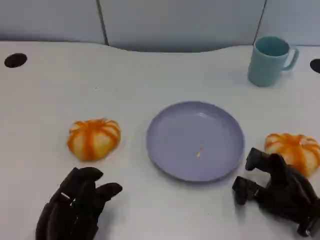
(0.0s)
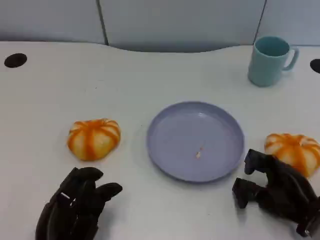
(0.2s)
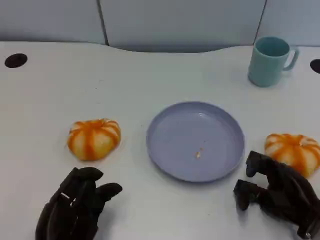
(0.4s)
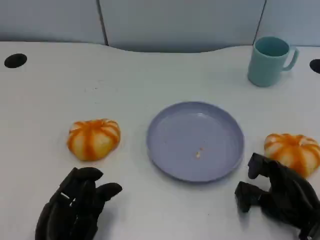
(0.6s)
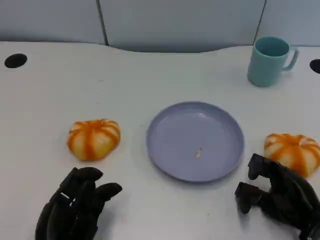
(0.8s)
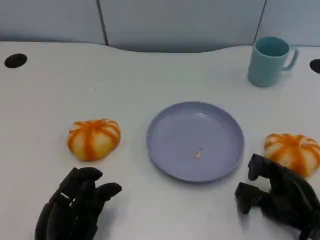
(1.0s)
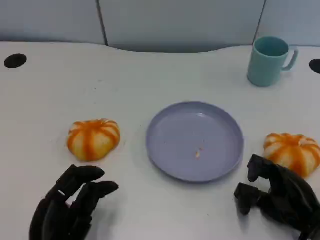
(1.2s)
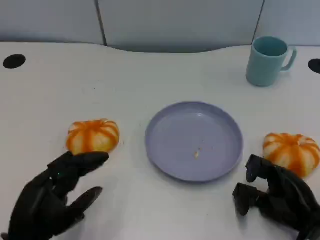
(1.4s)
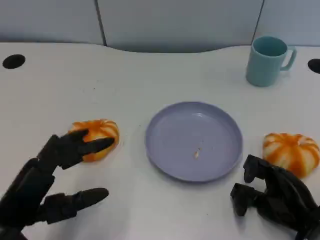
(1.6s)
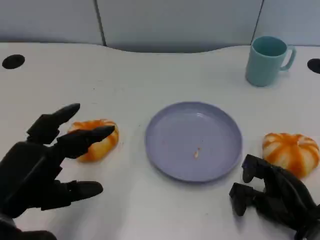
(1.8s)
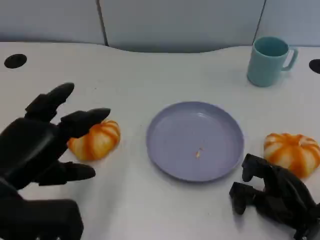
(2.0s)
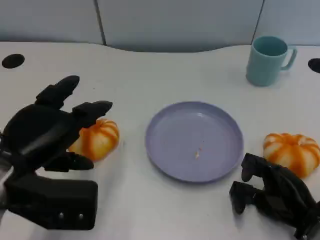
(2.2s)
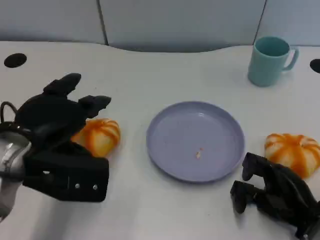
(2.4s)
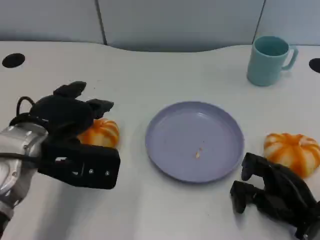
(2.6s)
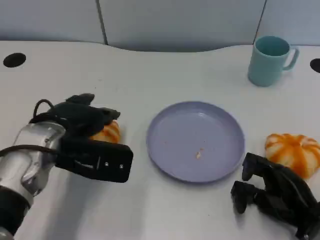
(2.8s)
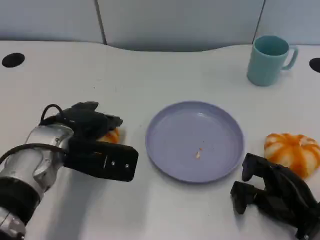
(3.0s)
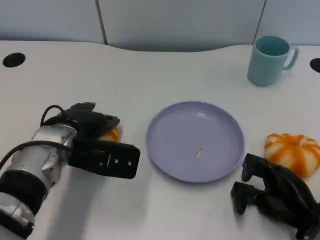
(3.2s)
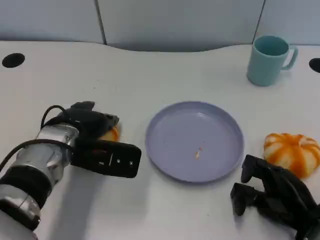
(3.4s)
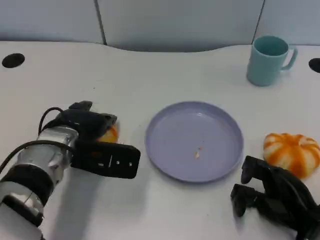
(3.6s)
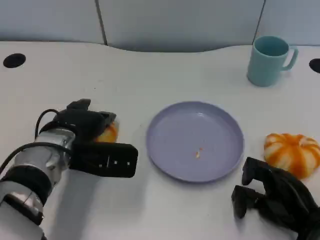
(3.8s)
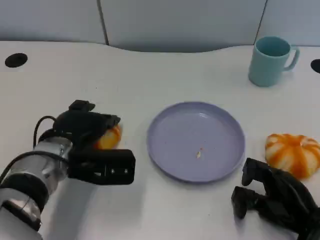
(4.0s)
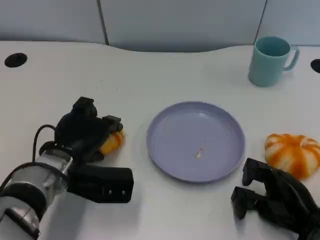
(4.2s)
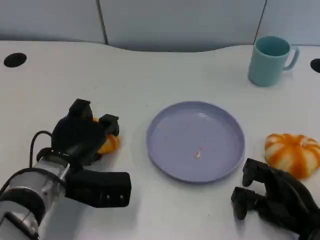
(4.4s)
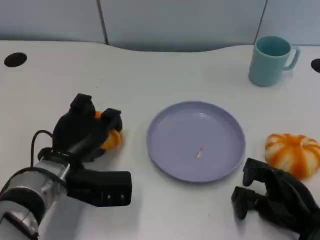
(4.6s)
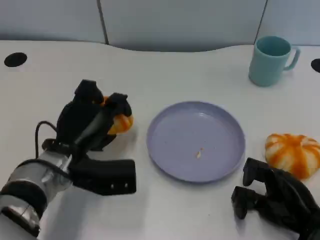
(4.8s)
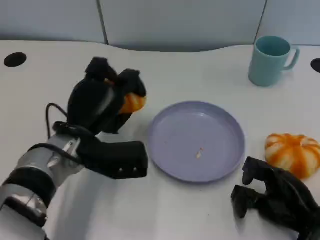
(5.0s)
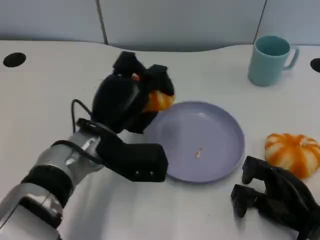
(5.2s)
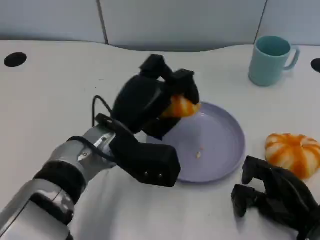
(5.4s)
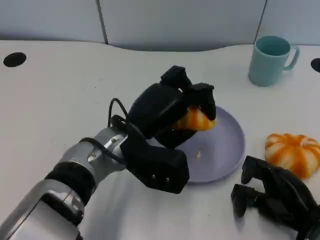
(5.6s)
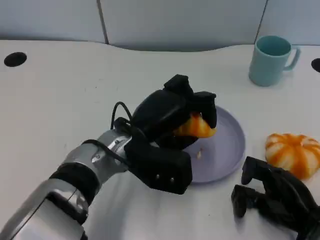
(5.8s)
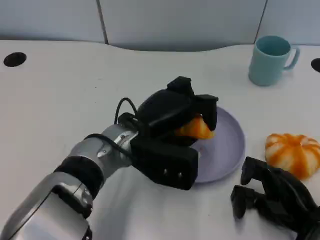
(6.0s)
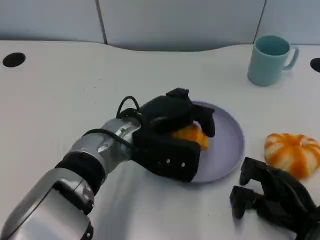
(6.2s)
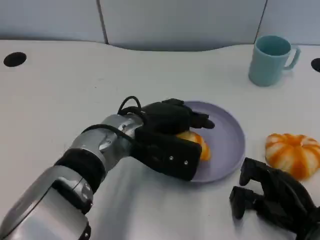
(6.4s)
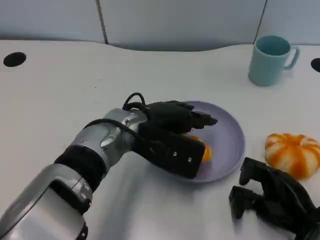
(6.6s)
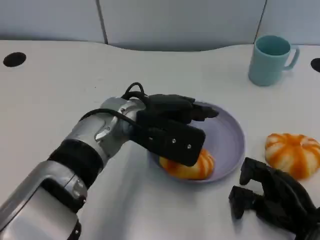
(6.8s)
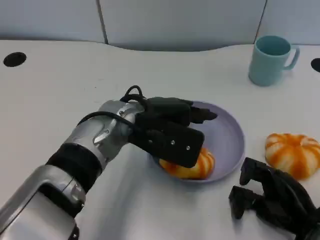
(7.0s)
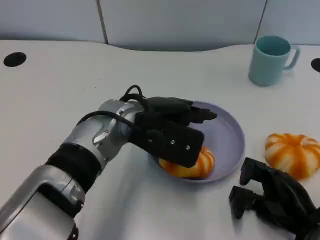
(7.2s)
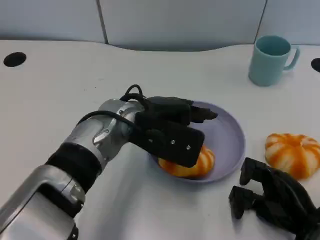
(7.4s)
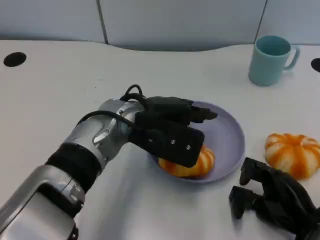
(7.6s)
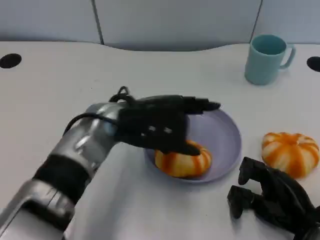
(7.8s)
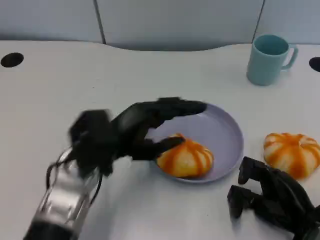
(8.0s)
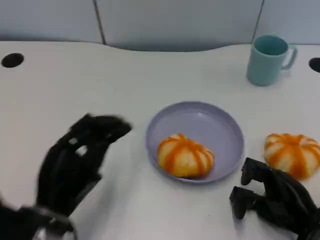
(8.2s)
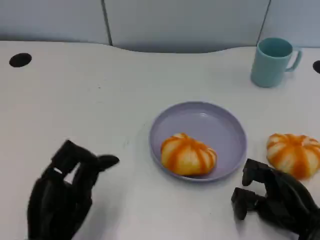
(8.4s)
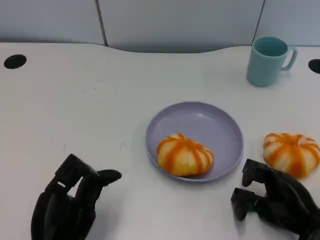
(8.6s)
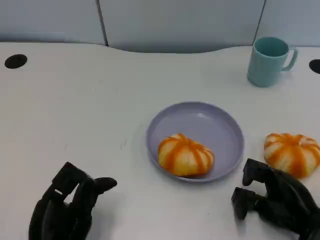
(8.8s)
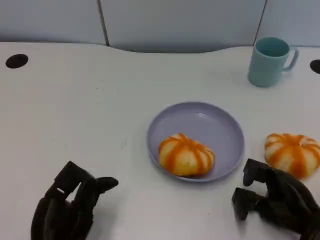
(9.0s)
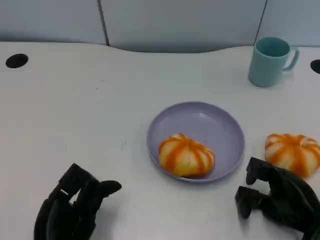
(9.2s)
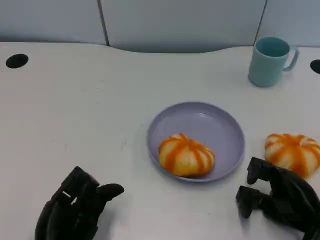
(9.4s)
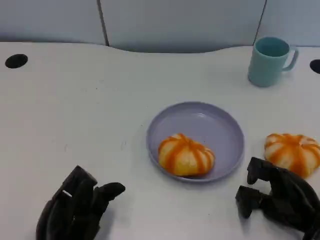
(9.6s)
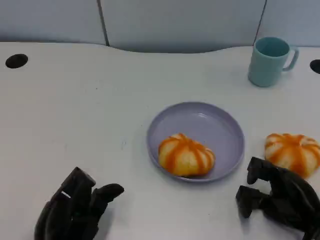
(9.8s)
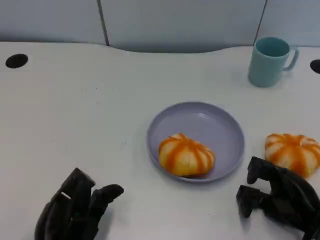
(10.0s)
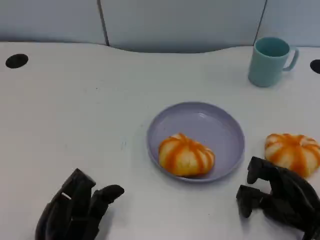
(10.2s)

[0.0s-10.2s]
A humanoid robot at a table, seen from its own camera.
Task of the whole recording: Grasp the bread from the table and place it into the plate.
0.0s to 1.4s: The left hand shifts by some 5 cm.
1.4s to 3.0s: The left hand is displaced forward by about 15 cm.
3.0s to 4.4s: The left hand shifts about 5 cm downward.
4.4s to 5.8s: The left hand moves to the right and upward, approximately 10 cm.
7.2s to 8.8s: The left hand goes some 25 cm backward, to the left and downward.
8.8s to 10.2s: There are only small adjustments of the hands.

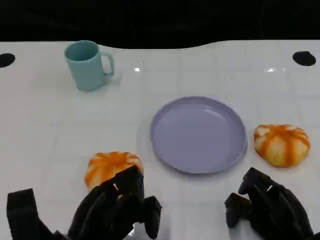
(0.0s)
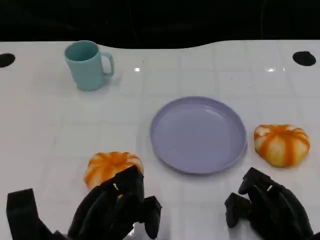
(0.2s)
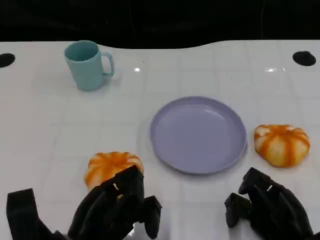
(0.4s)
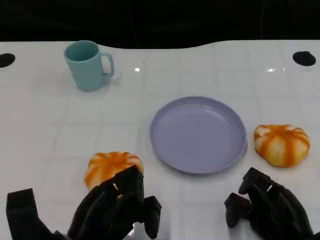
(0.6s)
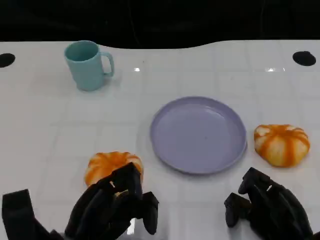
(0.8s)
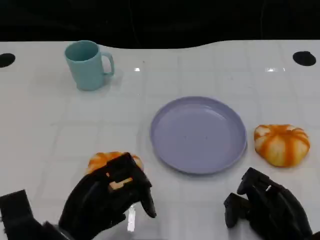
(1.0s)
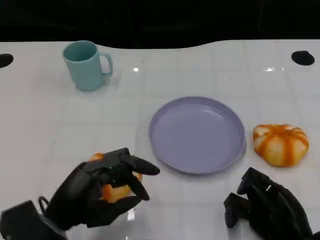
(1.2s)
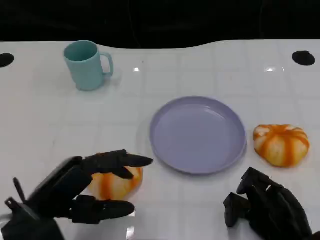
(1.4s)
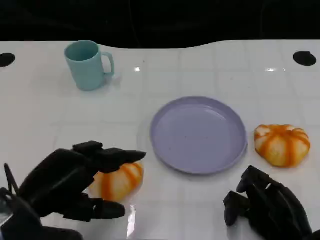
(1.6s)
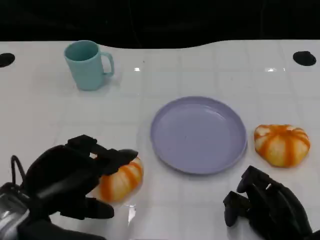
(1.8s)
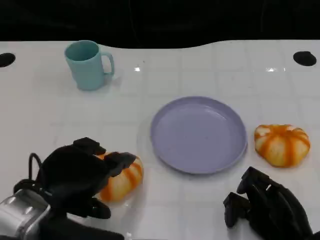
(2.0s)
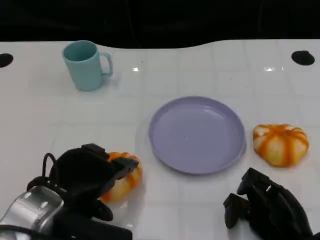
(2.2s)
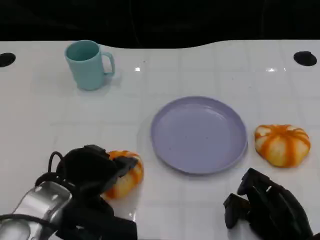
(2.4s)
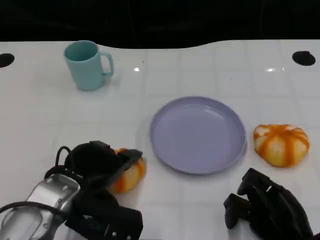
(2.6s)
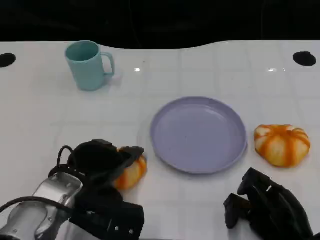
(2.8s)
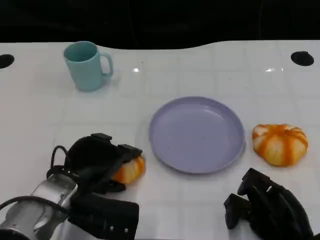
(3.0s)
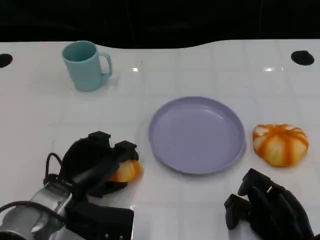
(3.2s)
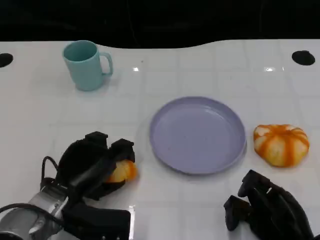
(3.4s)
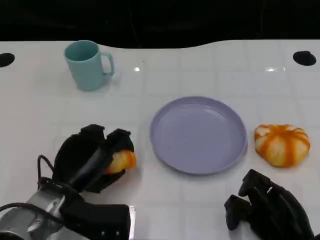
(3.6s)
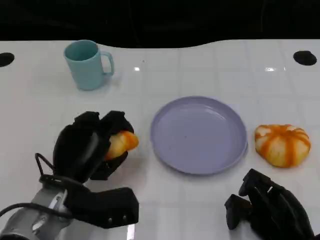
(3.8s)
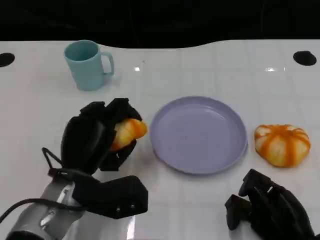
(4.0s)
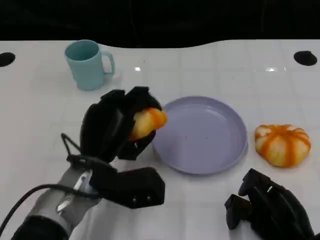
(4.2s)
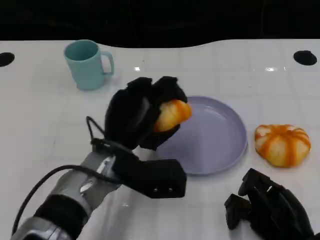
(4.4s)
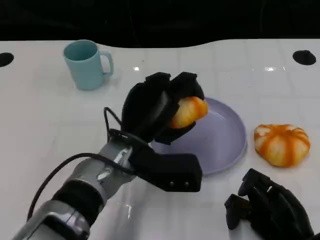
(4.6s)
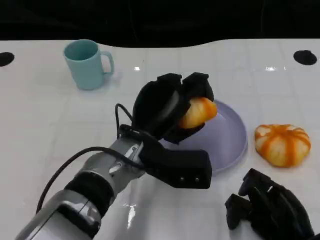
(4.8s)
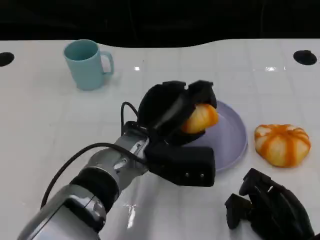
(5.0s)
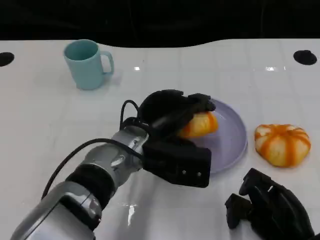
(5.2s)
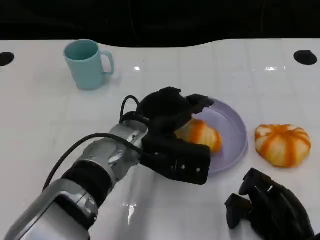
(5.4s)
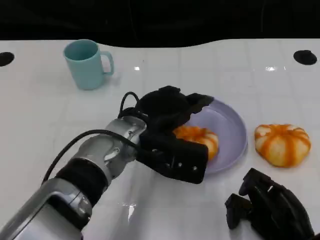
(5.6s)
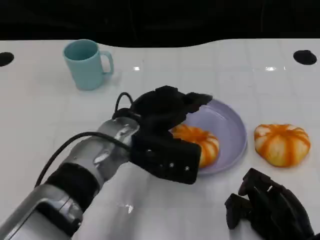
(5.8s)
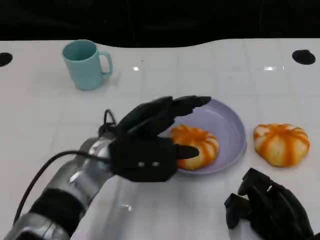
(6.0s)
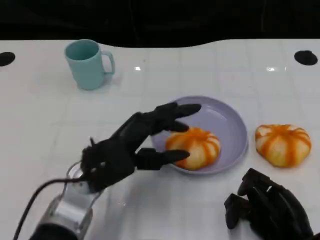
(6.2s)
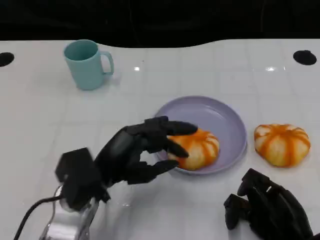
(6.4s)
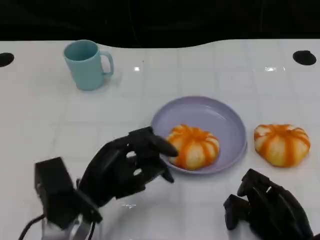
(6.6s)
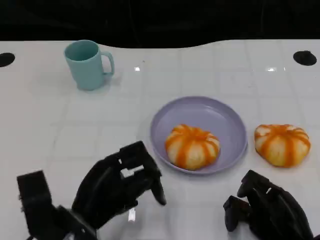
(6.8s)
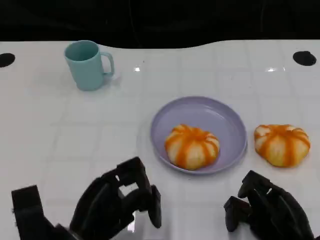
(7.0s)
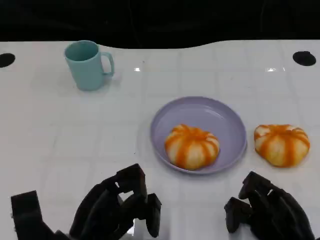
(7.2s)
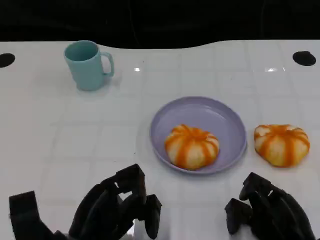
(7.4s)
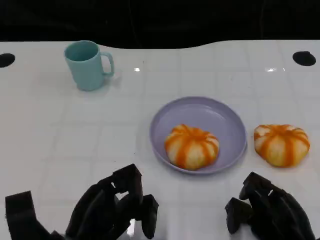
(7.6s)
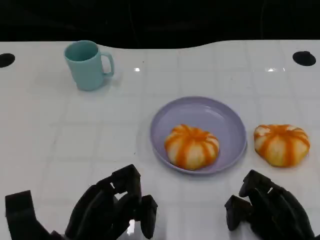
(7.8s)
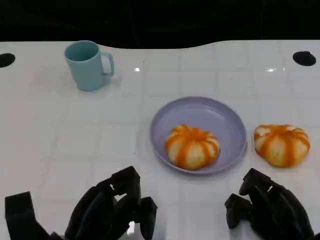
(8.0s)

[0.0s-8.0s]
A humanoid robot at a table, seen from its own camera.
Task of the whole recording: Grasp the bread from the table and place it into the plate.
0.0s to 1.6s: The left hand moves upward and to the left, some 10 cm.
1.6s to 3.2s: The left hand travels downward and forward by approximately 10 cm.
3.2s to 4.8s: The left hand travels to the right and upward by about 15 cm.
4.8s to 6.4s: The left hand moves to the left, about 10 cm.
6.4s to 8.0s: The left hand heads backward, covering some 5 cm.

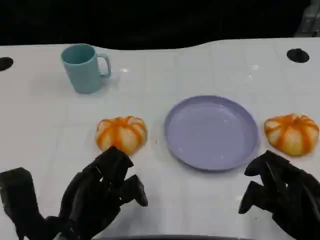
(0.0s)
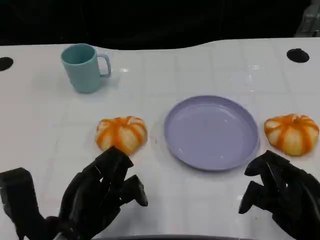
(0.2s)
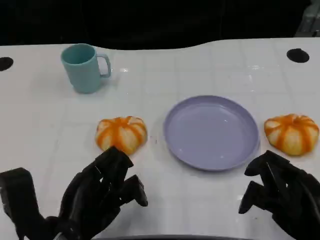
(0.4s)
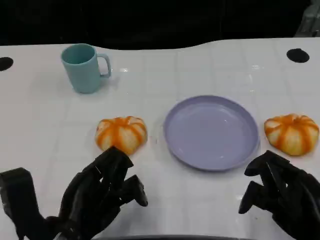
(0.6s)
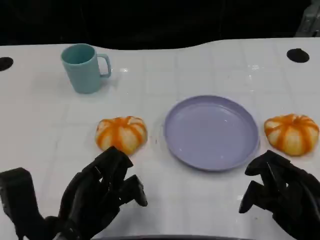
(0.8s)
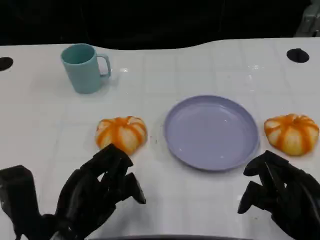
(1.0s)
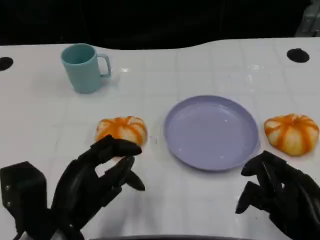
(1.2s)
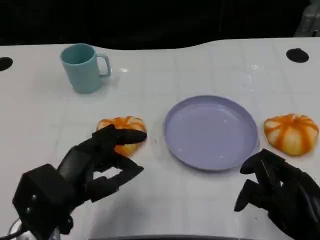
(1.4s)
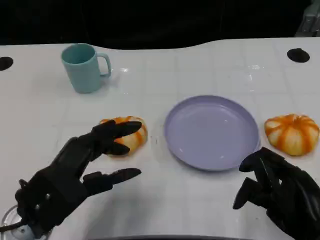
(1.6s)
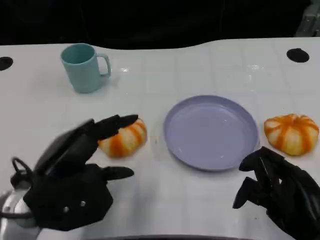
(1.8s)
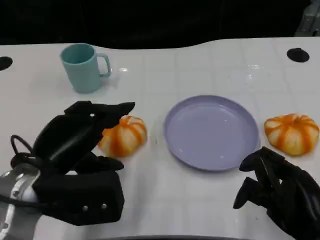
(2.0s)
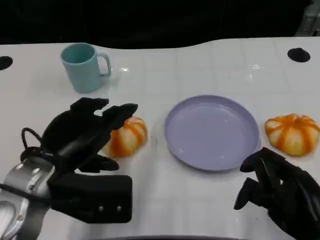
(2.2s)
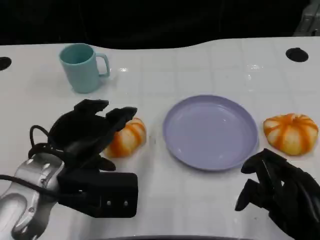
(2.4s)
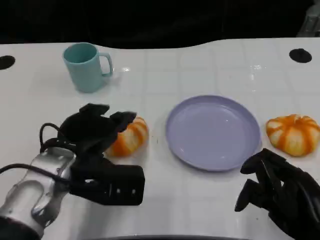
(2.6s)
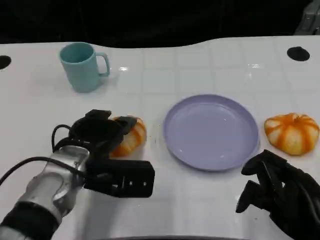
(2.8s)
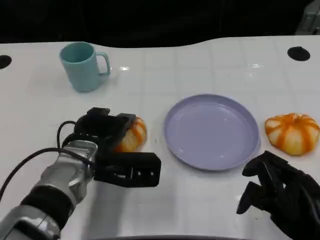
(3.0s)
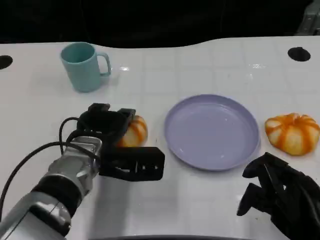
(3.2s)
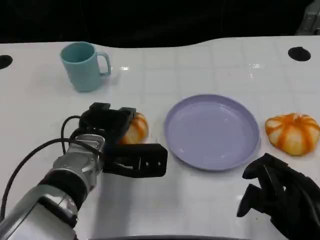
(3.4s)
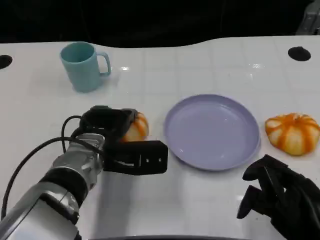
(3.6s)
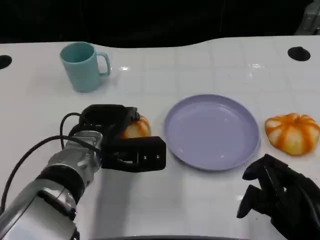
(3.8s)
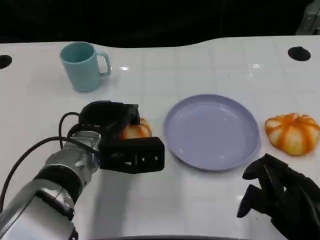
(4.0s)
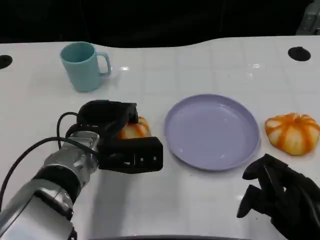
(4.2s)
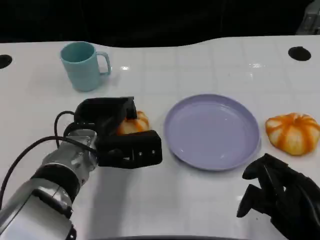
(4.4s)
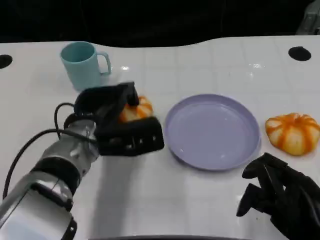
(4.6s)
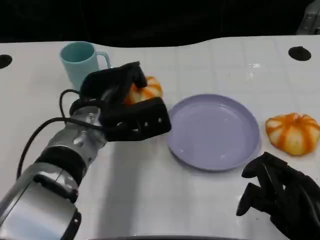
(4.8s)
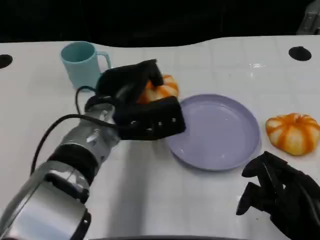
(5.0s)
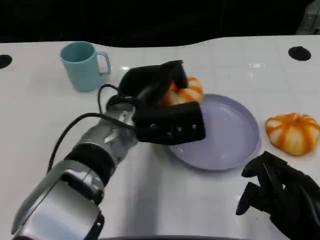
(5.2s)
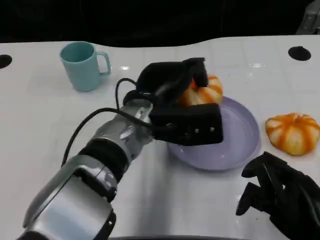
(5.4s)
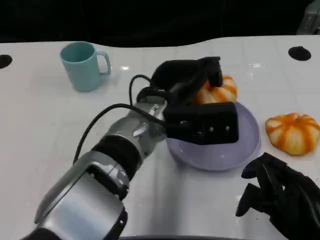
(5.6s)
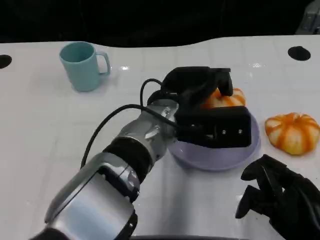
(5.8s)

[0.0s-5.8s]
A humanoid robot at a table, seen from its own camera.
Task of the whole recording: Grasp the bread from the table and place it into the plate.
1.4s to 2.8s: The left hand is displaced forward by some 10 cm.
2.8s to 4.4s: The hands stay close to where they were, moving slightly.
4.4s to 5.8s: The left hand heads to the right and upward, covering some 15 cm.
